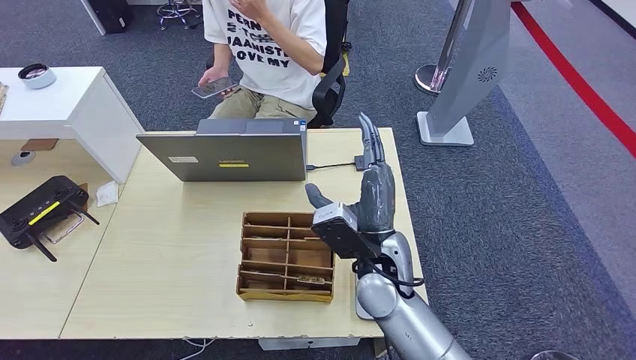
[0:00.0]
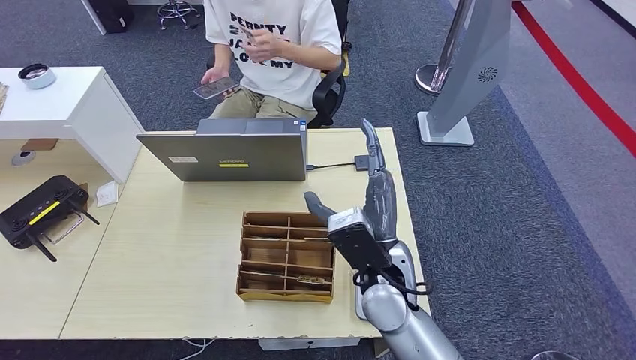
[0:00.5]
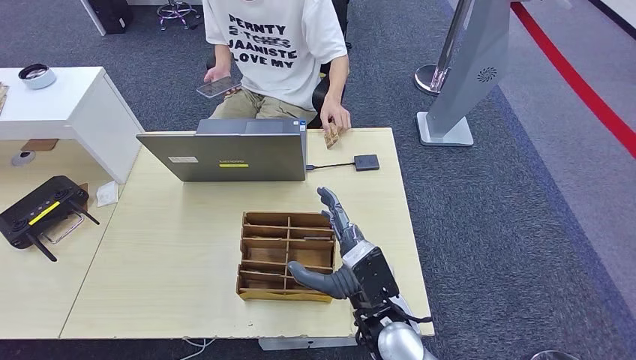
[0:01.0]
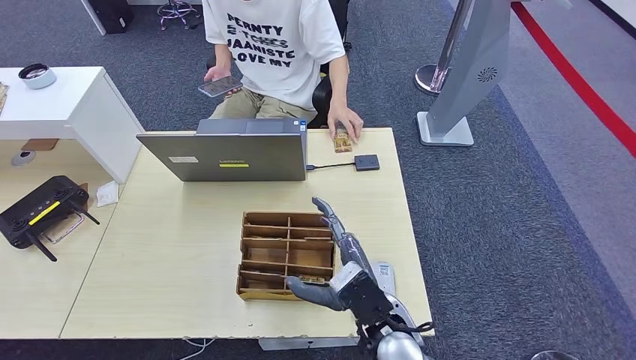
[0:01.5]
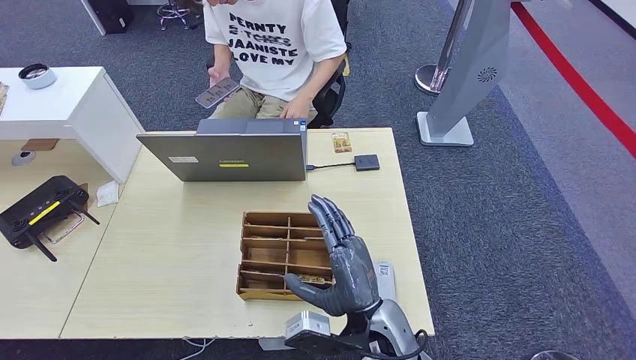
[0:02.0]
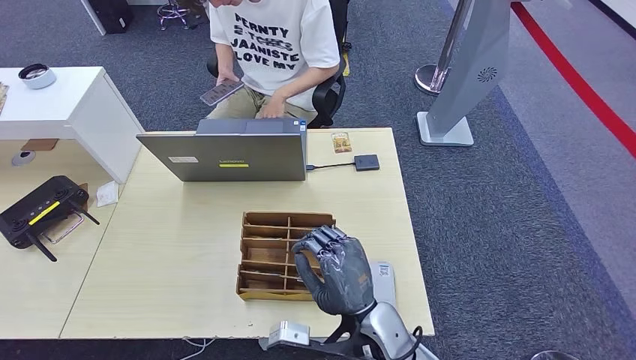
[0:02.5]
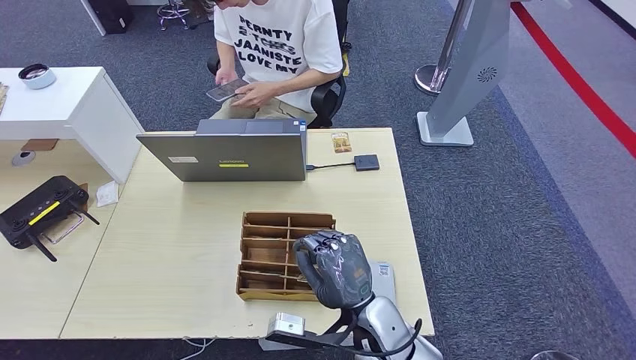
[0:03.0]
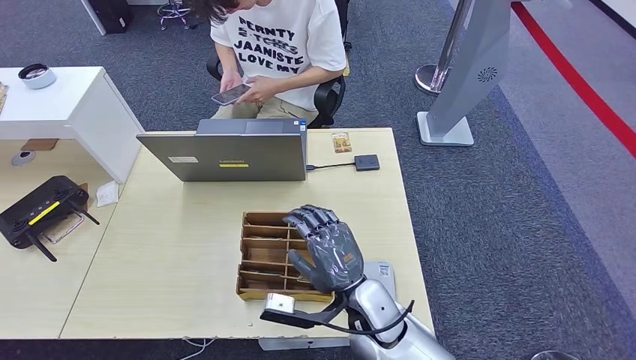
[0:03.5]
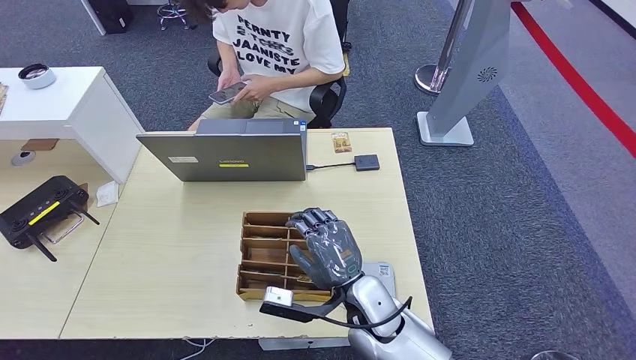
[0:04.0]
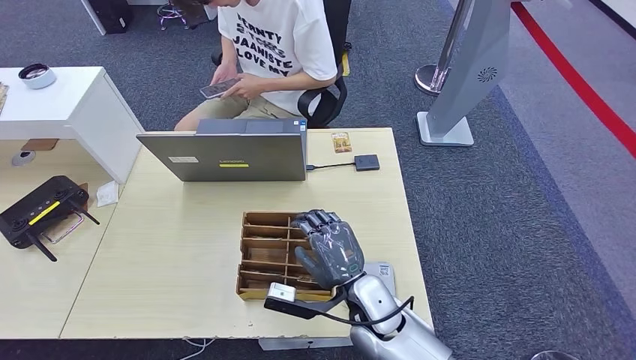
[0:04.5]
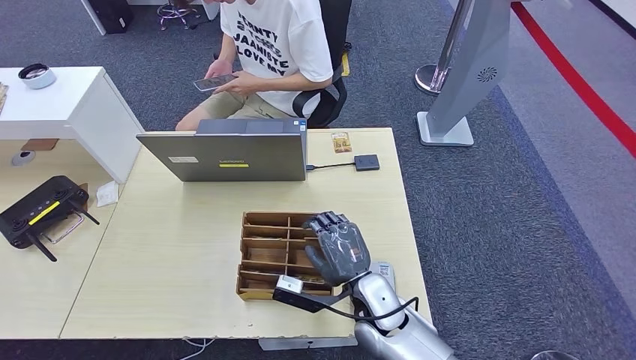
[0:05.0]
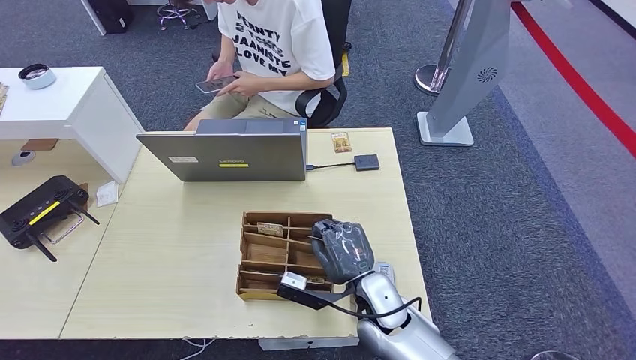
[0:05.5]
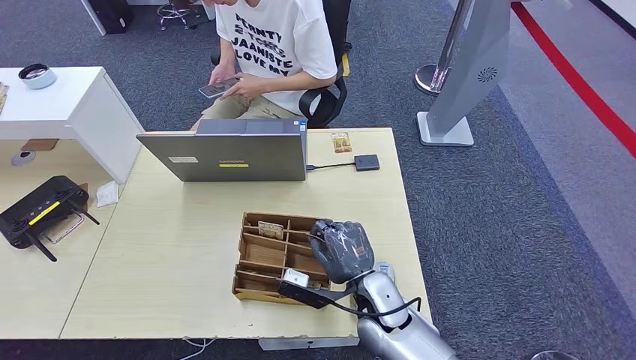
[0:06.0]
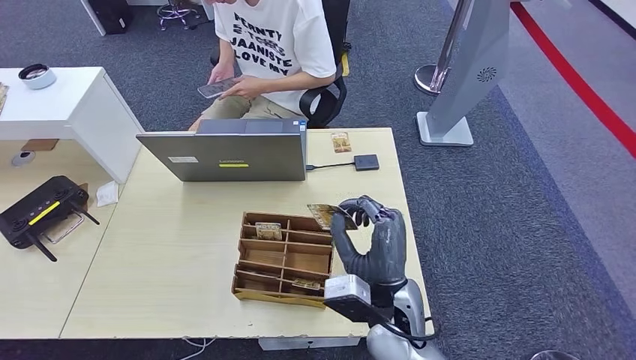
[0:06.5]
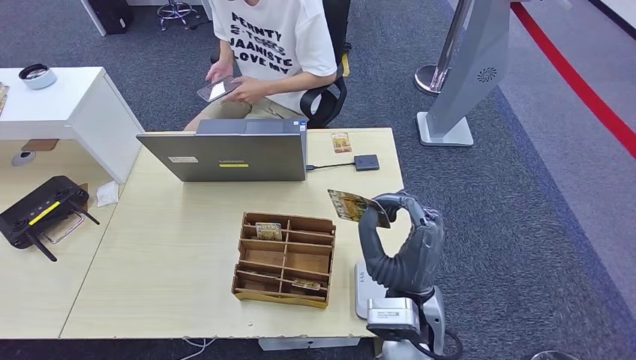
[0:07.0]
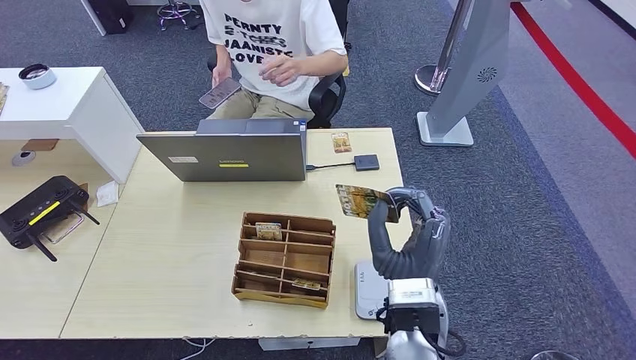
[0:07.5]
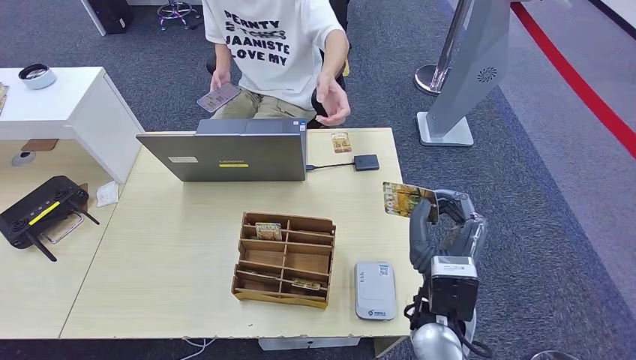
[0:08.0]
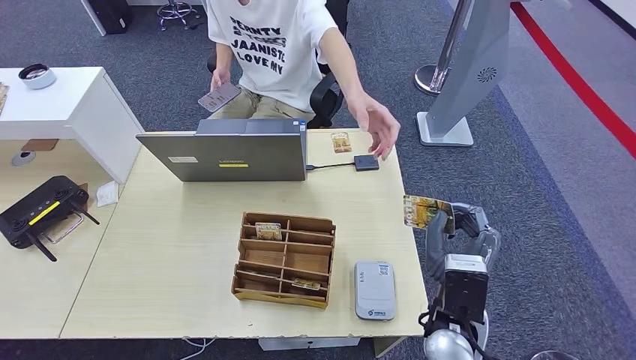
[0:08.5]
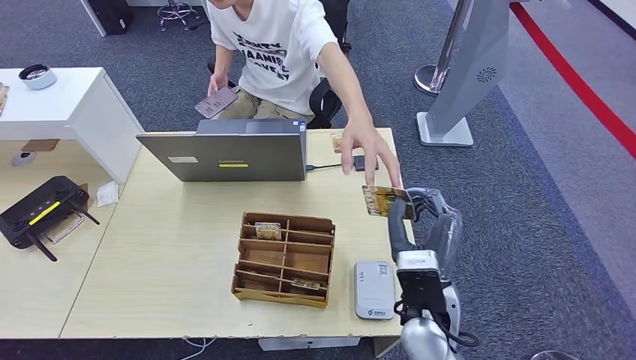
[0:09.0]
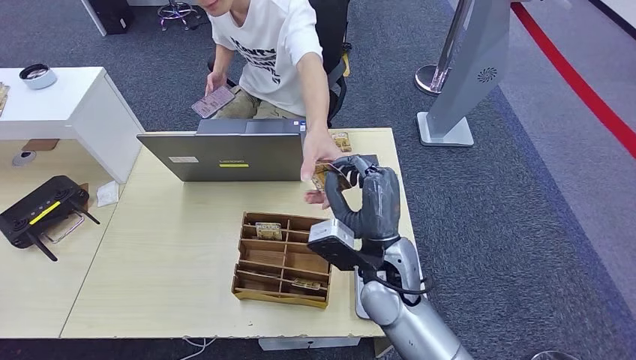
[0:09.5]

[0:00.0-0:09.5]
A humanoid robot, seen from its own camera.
Step, 0:00.0 to 0:06.0: Pick up the room key from the key card box.
Step, 0:07.0 to 0:09.5: Hand the room key to the person.
0:00.0 to 0:02.0: The right hand travels backward and downward by approximately 10 cm.
0:02.0 to 0:04.0: The right hand shifts by approximately 5 cm.
0:04.0 to 0:05.5: The hands stay close to where they were, moving slightly.
0:05.5 to 0:07.5: The right hand travels upward by approximately 10 cm.
0:07.5 to 0:09.5: The right hand shifts roughly 5 cm forward, and goes to the right and returns, roughly 5 cm each way.

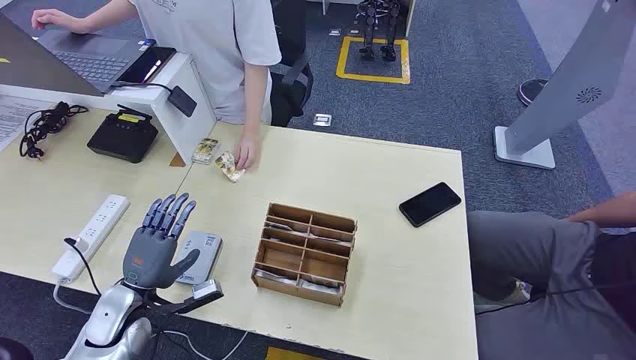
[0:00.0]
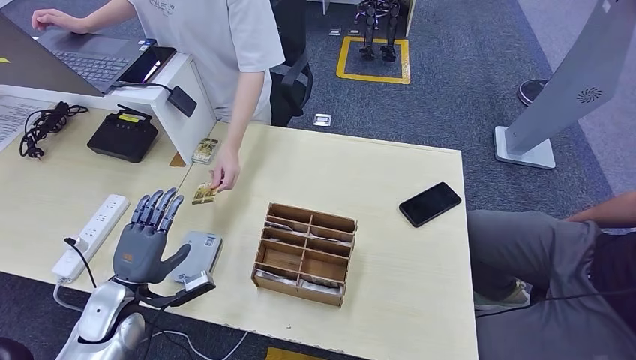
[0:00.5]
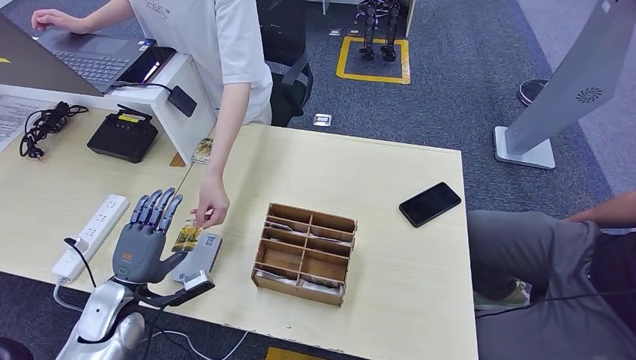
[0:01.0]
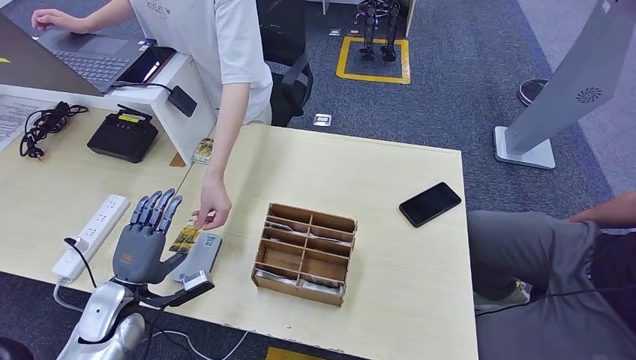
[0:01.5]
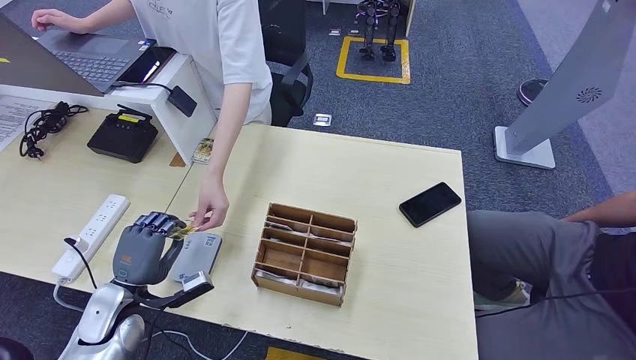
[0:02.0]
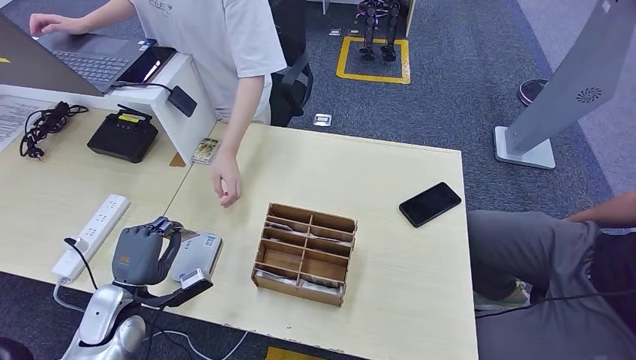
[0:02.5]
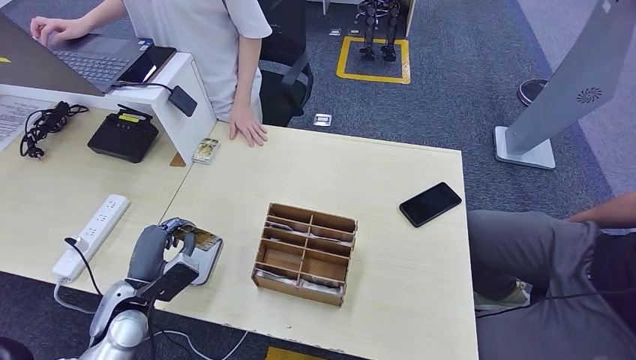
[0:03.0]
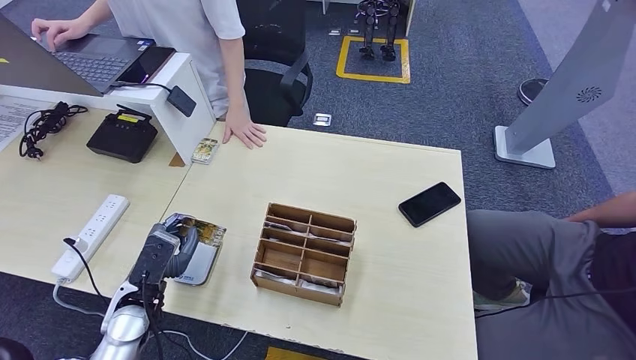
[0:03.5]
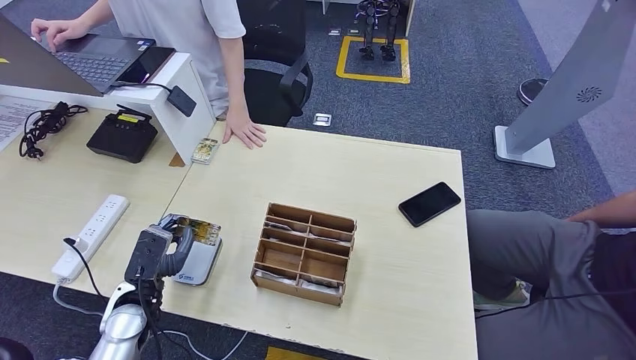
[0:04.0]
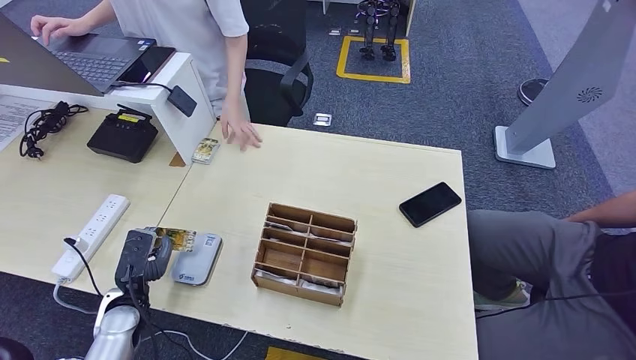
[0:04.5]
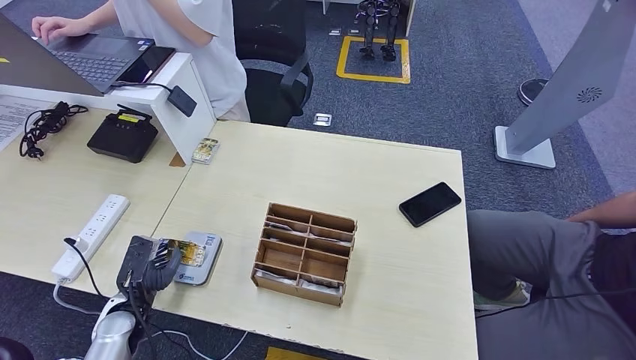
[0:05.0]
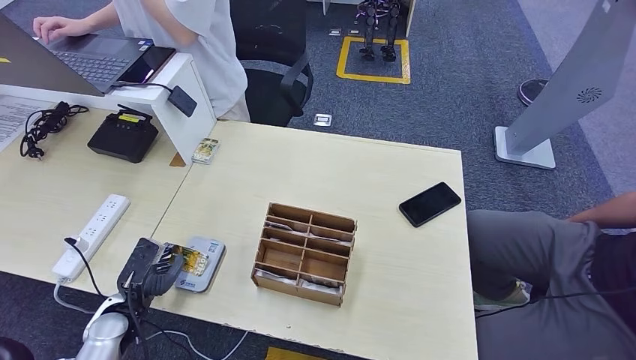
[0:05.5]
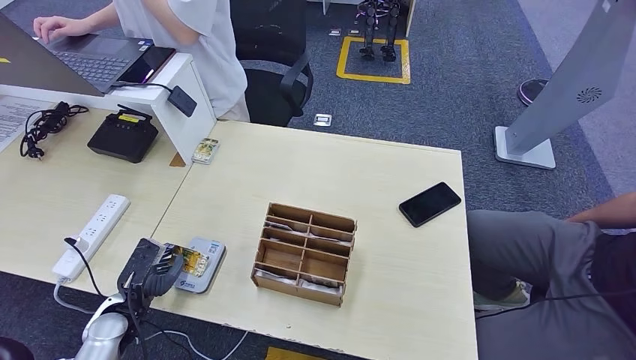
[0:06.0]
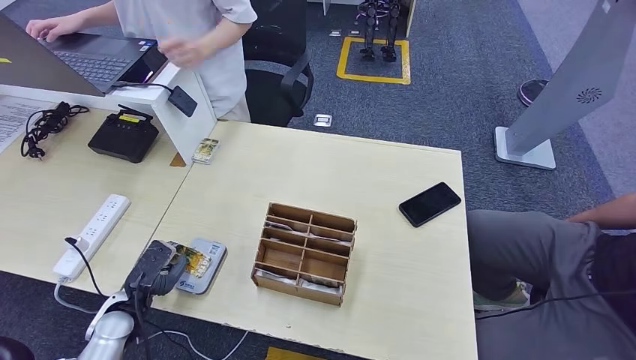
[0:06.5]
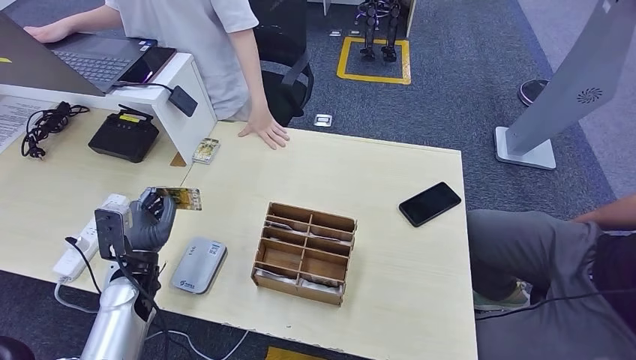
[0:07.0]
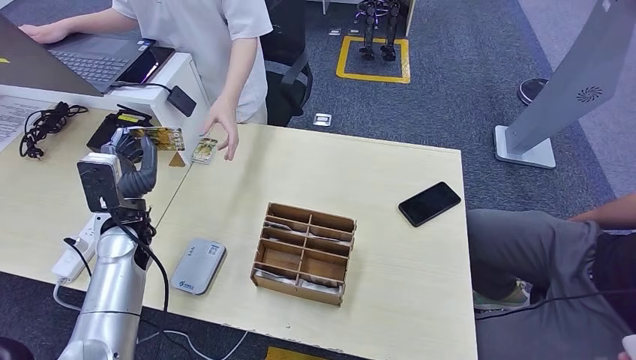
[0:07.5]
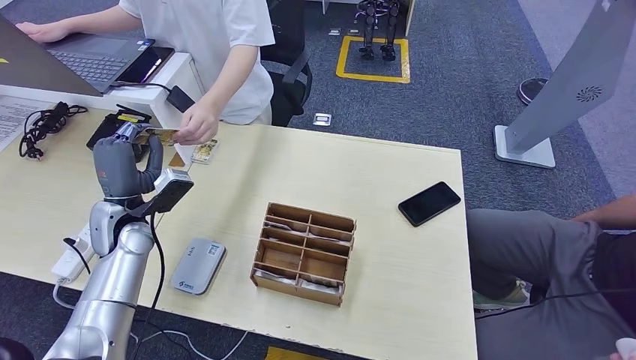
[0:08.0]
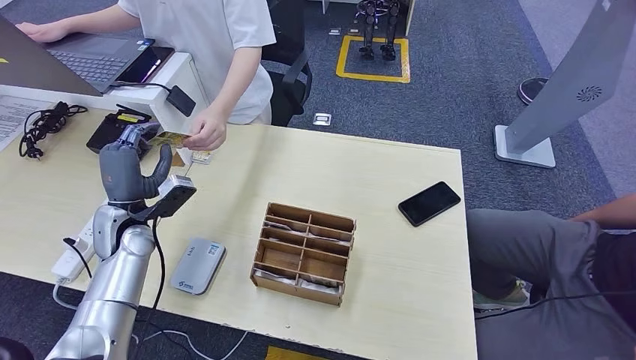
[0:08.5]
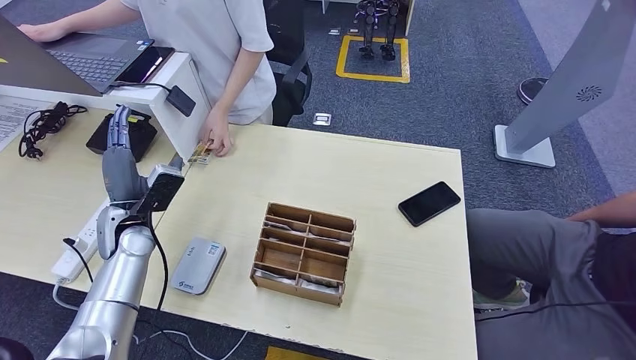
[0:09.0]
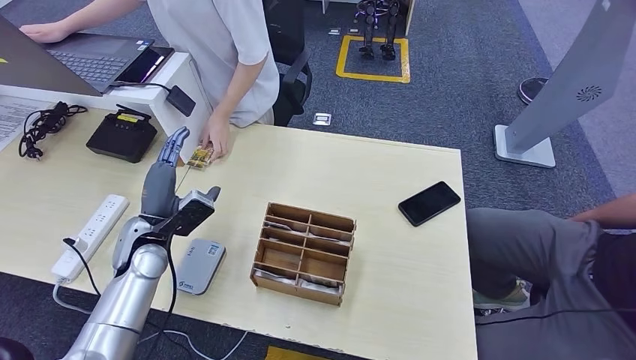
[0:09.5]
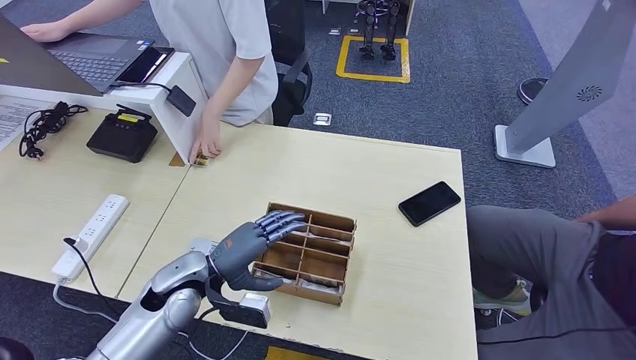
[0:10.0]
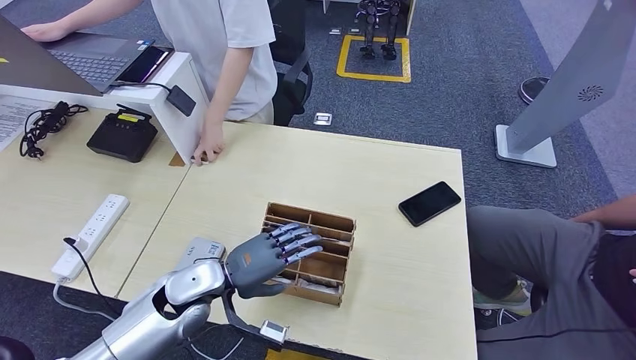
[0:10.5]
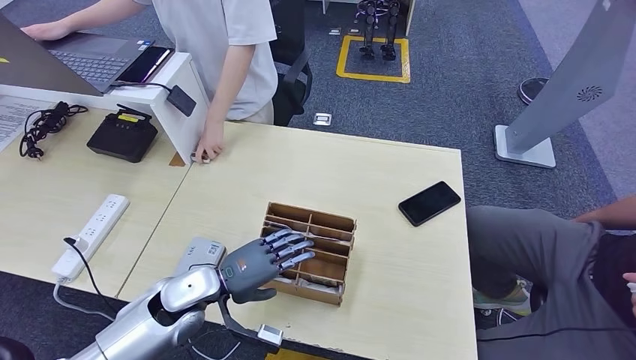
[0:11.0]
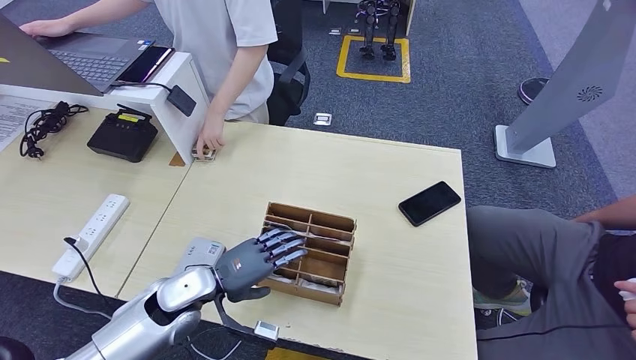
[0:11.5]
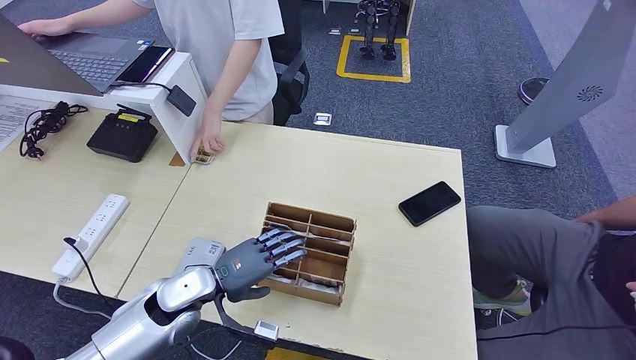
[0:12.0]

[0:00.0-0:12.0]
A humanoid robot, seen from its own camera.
Step, 0:00.0 to 0:02.5: Take the ID card from the person's hand.
Step, 0:03.0 to 0:05.5: Place the ID card on the card reader.
Step, 0:06.5 to 0:08.5: Hand the ID card to the person.
0:04.0 to 0:06.0: The left hand moves to the left and downward, roughly 10 cm.
0:06.0 to 0:08.0: The left hand is displaced upward and forward by approximately 20 cm.
0:08.0 to 0:10.0: The left hand heads to the right, backward and downward, covering some 15 cm.
